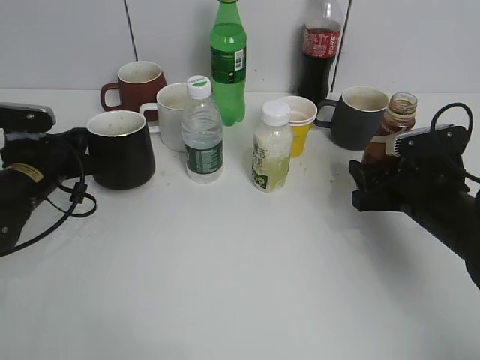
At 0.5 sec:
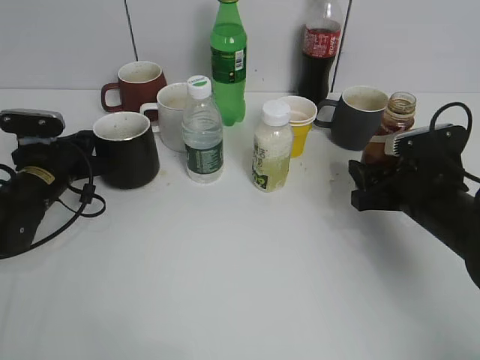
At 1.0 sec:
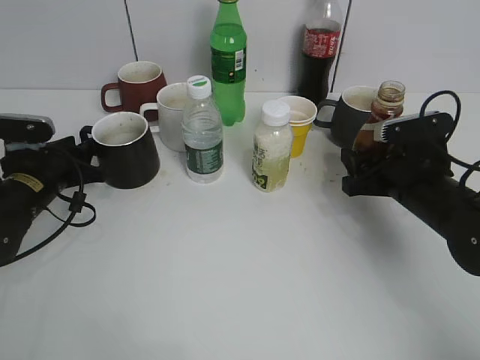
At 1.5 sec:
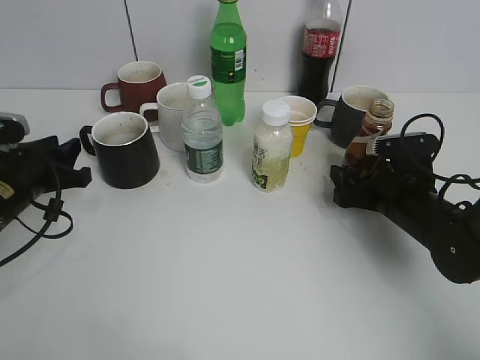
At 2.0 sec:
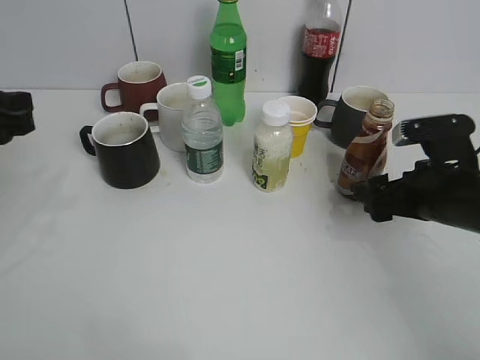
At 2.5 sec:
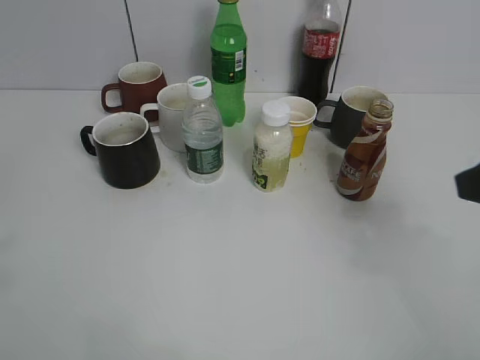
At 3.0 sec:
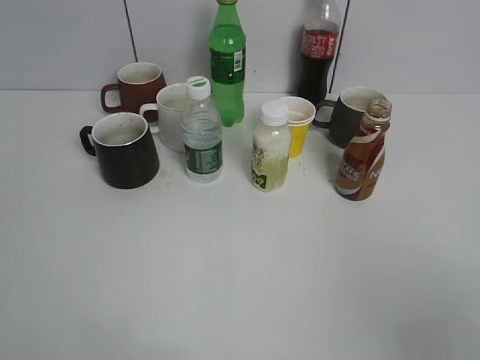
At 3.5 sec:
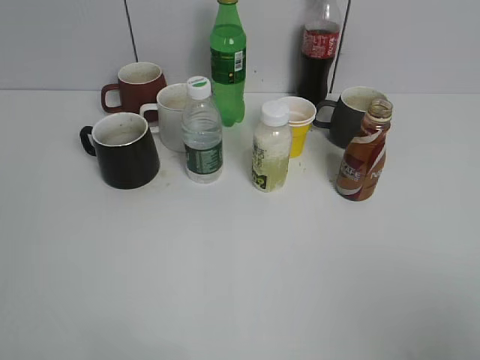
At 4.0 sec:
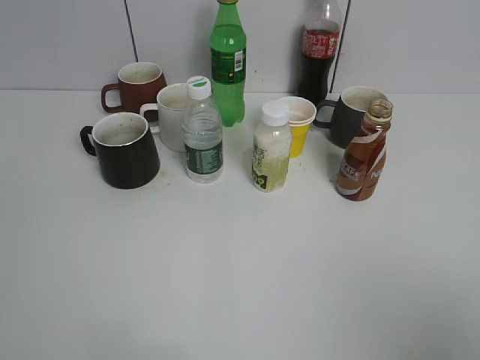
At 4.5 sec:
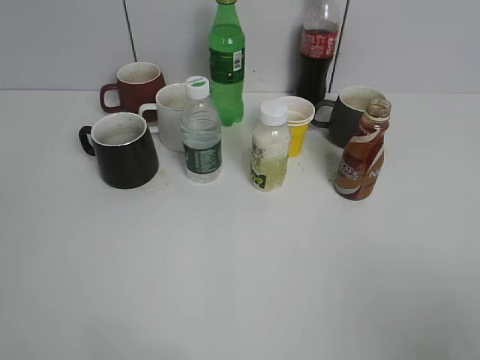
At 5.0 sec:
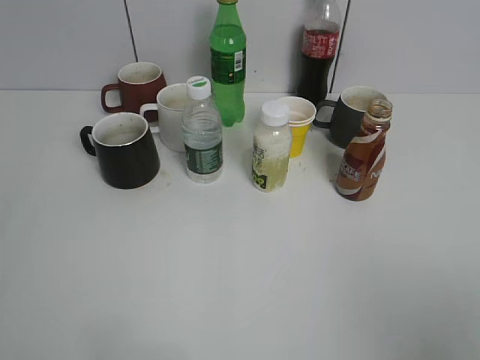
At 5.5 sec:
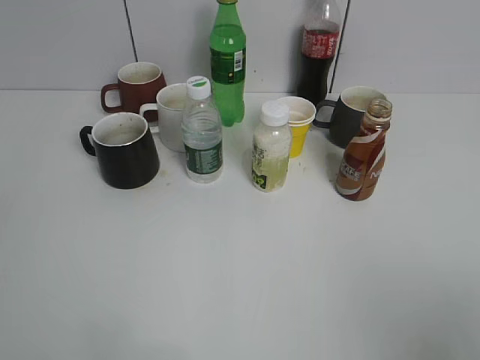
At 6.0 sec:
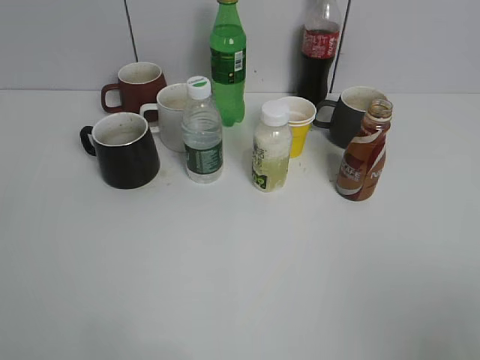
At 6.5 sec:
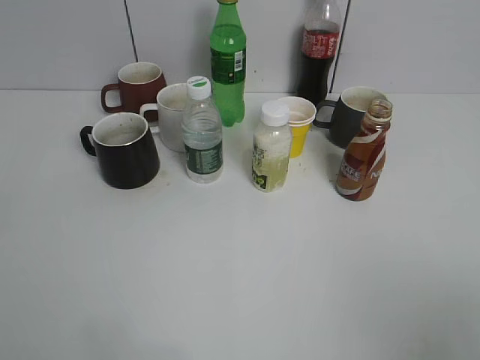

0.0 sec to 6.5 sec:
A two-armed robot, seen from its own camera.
0.0 sec to 2.0 sec: The right gripper opens, while the left gripper goes roughly 15 cm upward and backward, and opens up.
2.0 sec to 4.5 sec: The right gripper heads backward and upward, covering about 30 cm, and closes up; the left gripper heads backward, covering about 25 cm.
4.5 sec to 6.5 sec: There are only small adjustments of the grippers.
